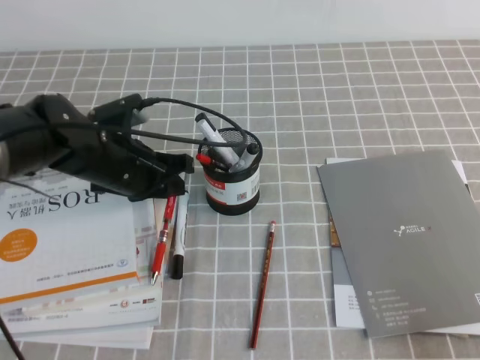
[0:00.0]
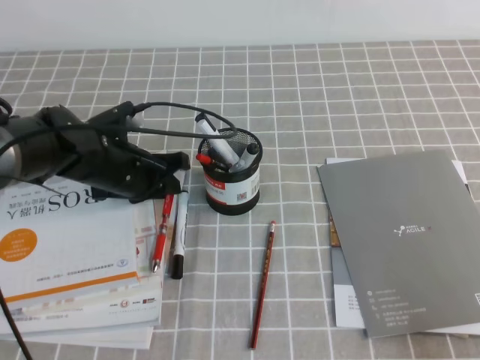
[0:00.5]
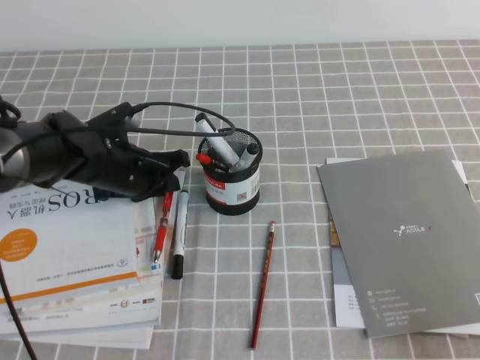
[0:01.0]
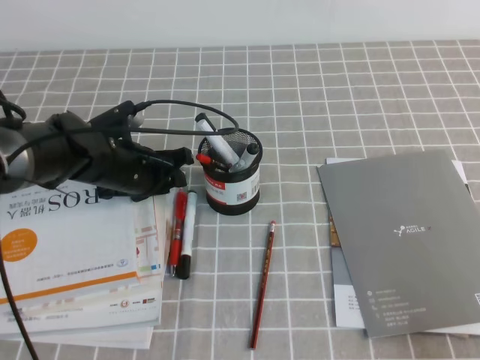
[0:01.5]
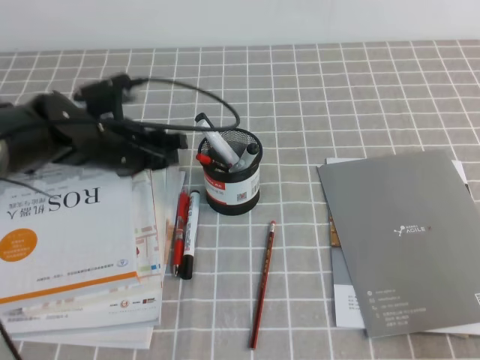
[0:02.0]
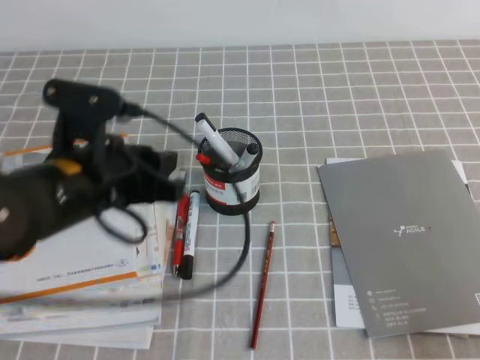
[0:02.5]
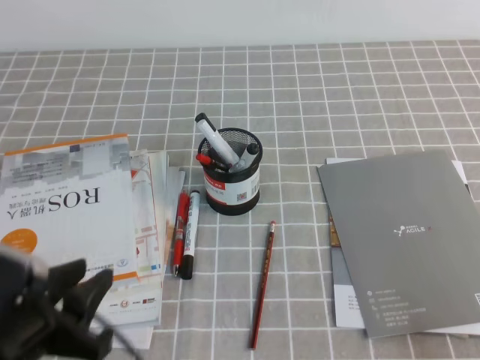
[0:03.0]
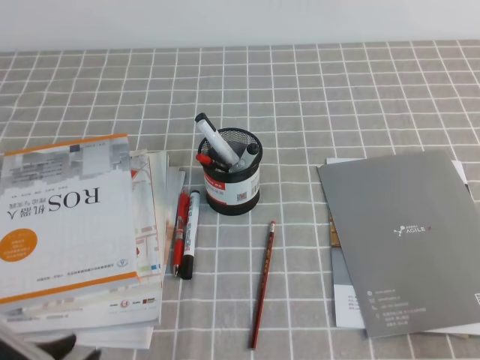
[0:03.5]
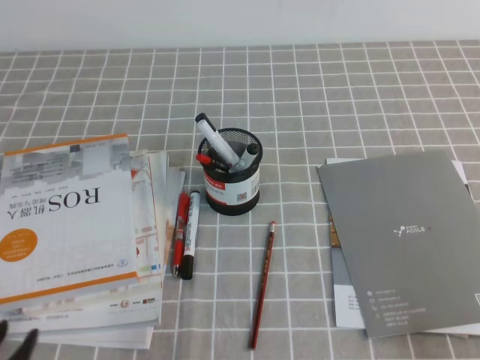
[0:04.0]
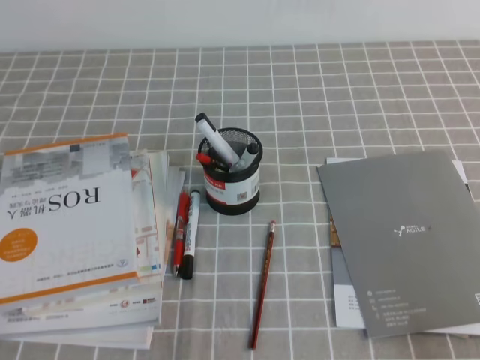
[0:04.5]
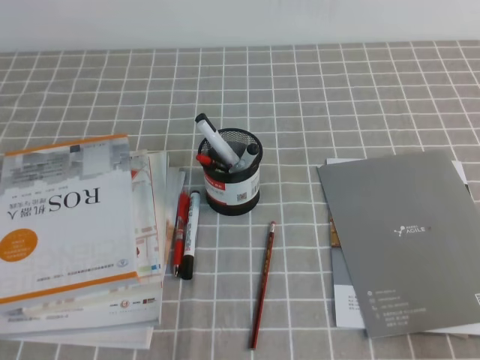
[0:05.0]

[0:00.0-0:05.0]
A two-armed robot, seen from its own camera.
Step, 0:00.0 to 0:05.0: Pick up the pen from the pen holder.
0:00.0 to 0:02.5: The left gripper moves backward and upward, approximately 10 cm.
0:02.5 to 0:05.0: The left gripper travels backward, to the left and downward by about 25 cm.
